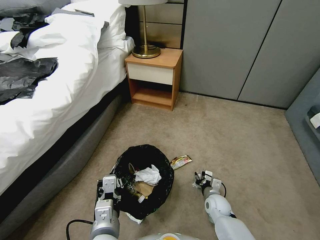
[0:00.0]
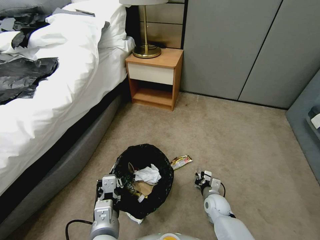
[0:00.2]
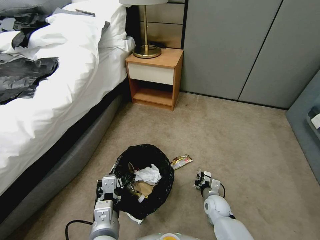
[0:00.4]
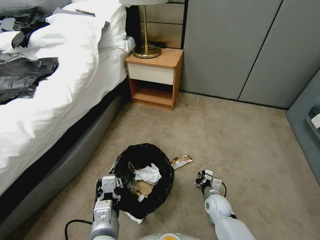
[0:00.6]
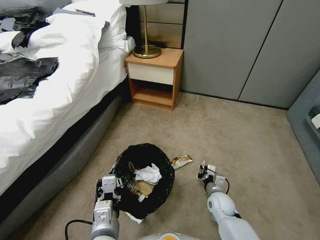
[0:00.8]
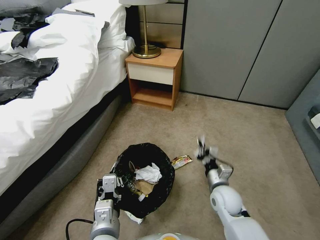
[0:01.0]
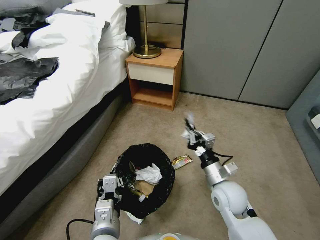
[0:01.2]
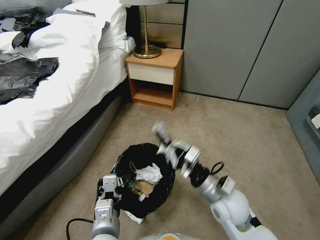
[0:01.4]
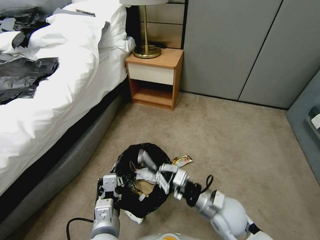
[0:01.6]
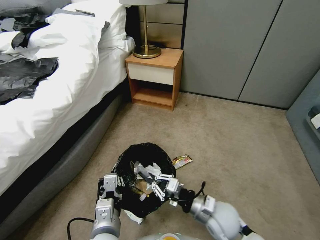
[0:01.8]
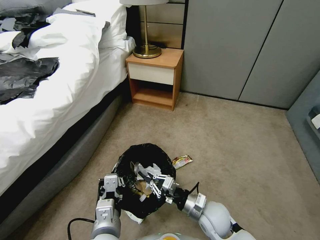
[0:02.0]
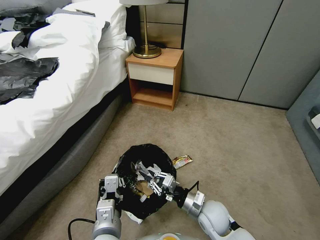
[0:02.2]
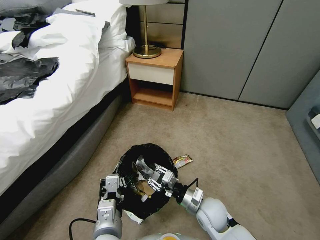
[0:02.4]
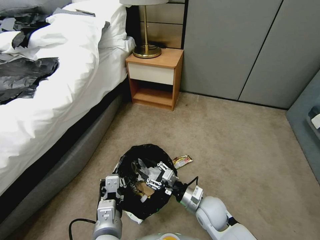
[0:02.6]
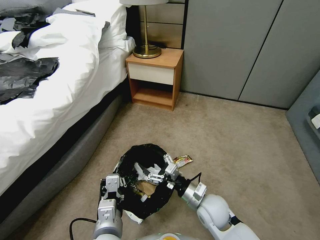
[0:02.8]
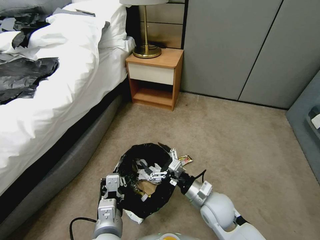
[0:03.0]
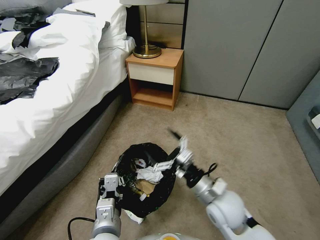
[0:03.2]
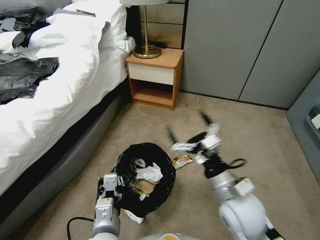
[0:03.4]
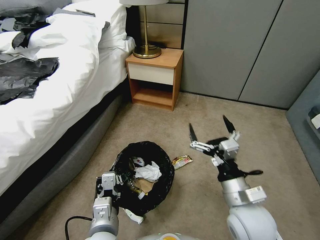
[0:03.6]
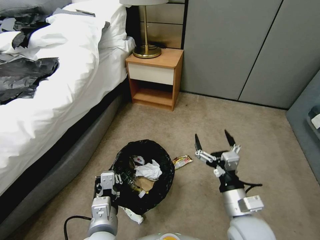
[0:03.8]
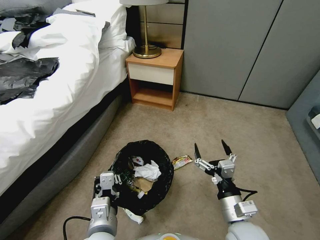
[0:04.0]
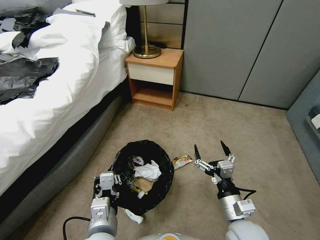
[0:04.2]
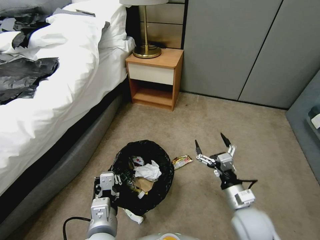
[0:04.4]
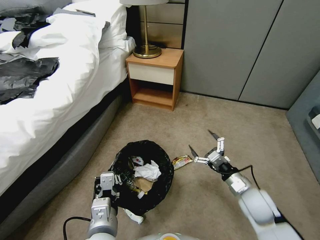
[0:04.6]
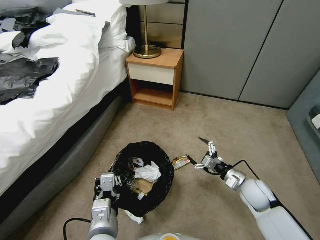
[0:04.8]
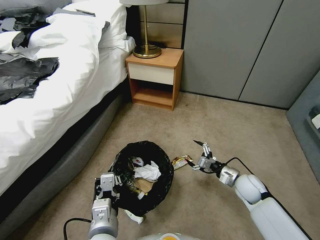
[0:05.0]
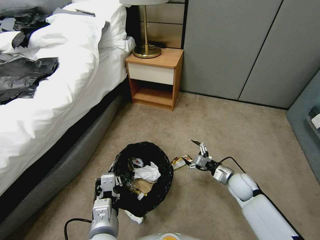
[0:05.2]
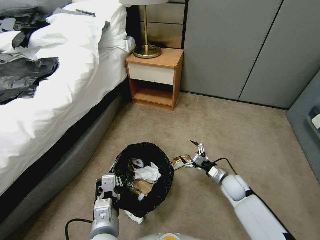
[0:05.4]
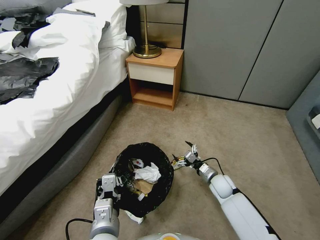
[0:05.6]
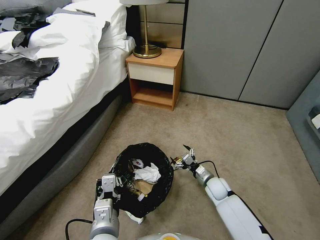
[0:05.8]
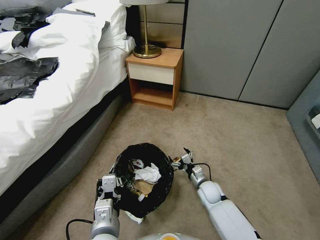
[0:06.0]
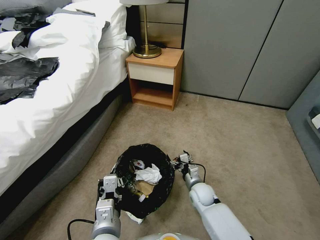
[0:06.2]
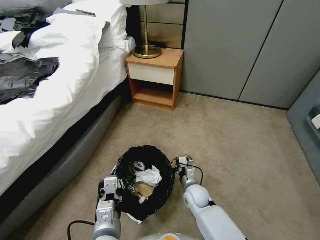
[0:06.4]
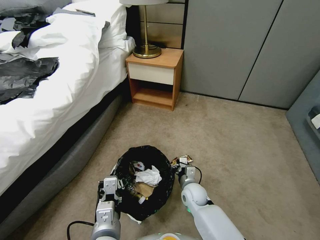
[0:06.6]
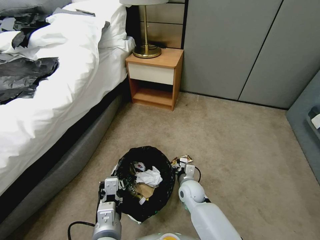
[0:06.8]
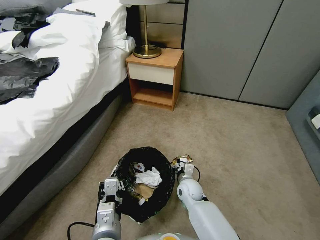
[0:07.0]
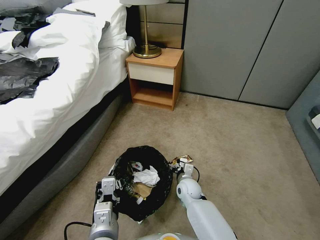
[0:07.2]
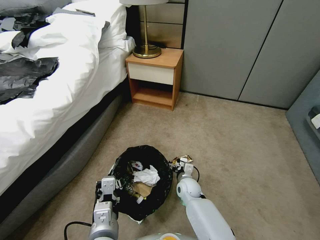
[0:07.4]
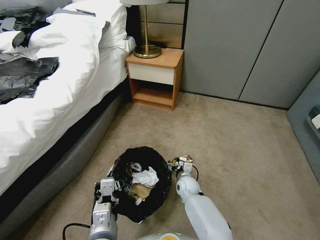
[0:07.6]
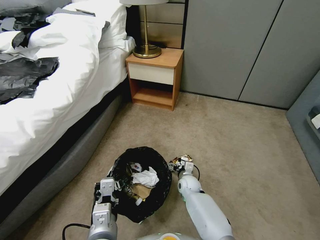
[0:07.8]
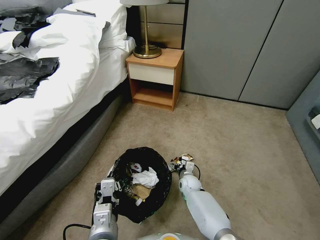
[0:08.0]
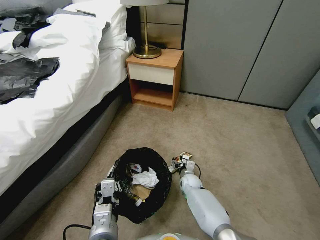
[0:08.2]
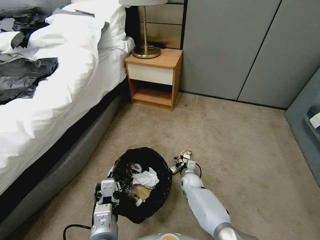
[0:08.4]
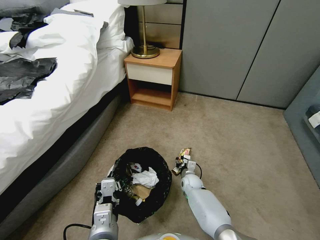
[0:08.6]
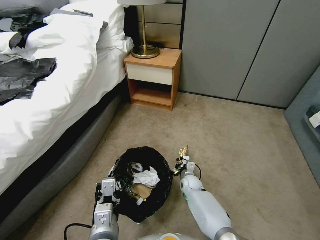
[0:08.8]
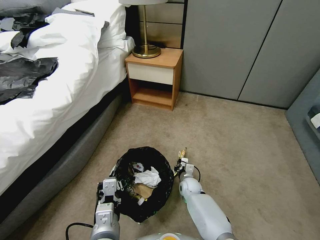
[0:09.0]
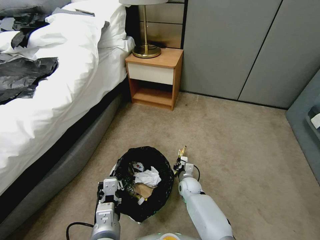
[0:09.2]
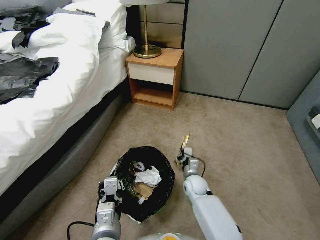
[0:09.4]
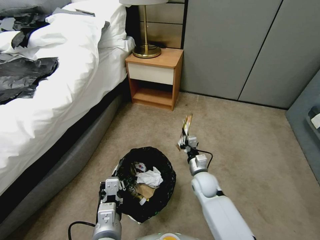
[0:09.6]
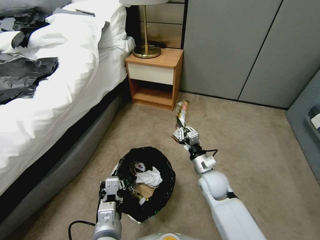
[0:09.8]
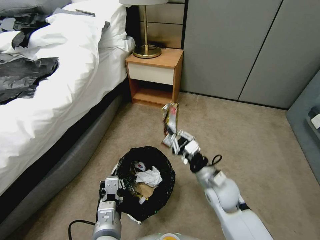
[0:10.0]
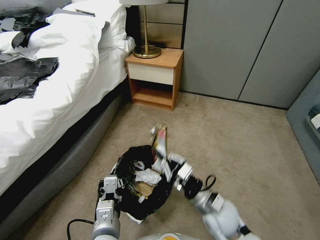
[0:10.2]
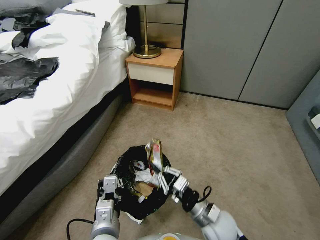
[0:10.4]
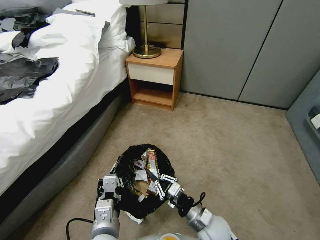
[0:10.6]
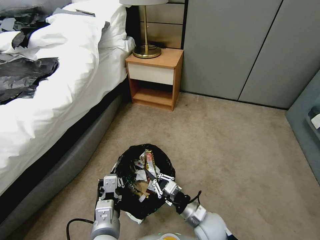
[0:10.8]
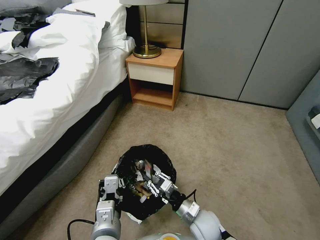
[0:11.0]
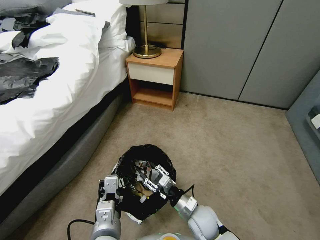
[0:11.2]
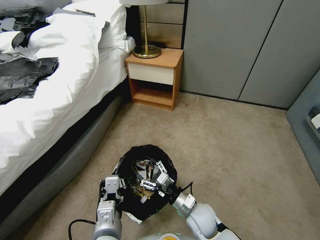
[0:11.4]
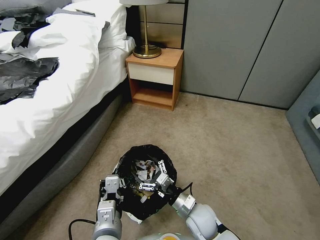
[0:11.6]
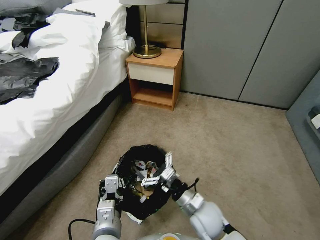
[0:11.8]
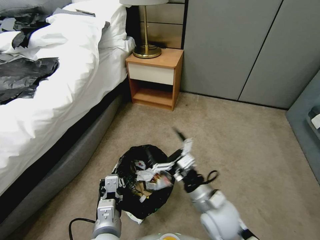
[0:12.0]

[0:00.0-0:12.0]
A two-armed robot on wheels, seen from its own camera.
Task of the whole recording: Pick up the trash bin, then pick up the garbage from the floor and place it into the trash bin.
0:00.0 to 0:01.6: The right gripper moves upward, approximately 20 cm, and closes up.
0:01.6 to 0:03.0: The right gripper opens its fingers.
0:03.0 to 0:04.4: The right gripper goes roughly 10 cm to the right and backward, and reaches about 10 cm upward, then returns.
0:04.4 to 0:06.0: The right gripper travels downward and forward by roughly 25 cm.
0:06.0 to 0:07.6: The right gripper heads to the left, covering roughly 10 cm.
0:07.6 to 0:09.0: The right gripper closes.
0:09.0 to 0:10.4: The right gripper moves backward and upward, roughly 25 cm.
0:10.4 to 0:12.0: The right gripper travels upward by some 10 cm, and opens its fingers.

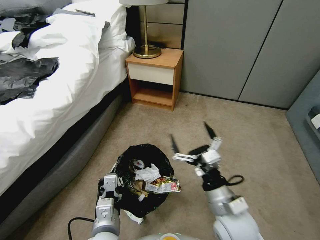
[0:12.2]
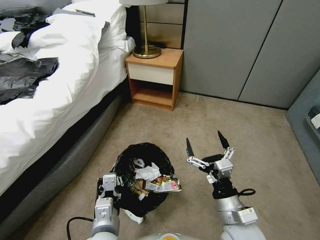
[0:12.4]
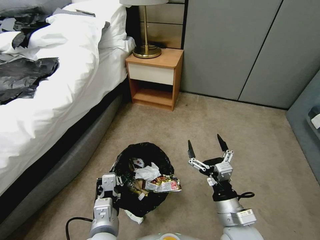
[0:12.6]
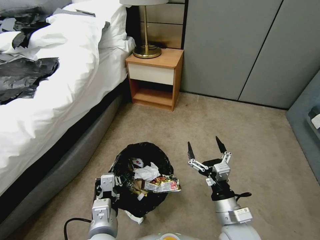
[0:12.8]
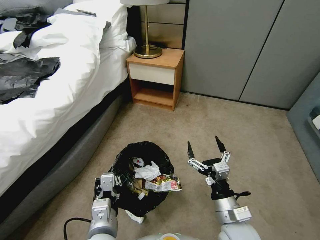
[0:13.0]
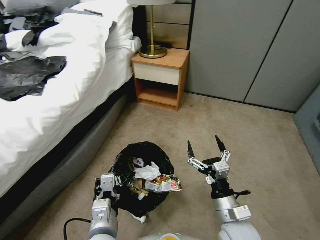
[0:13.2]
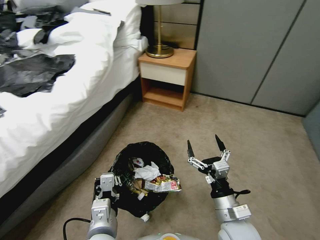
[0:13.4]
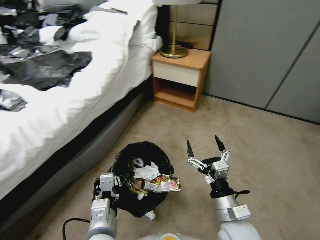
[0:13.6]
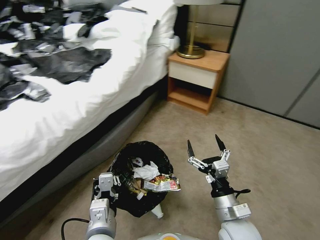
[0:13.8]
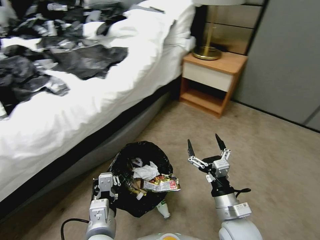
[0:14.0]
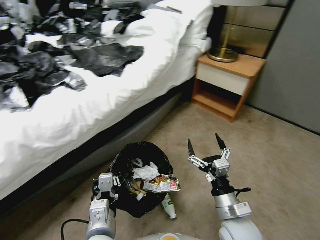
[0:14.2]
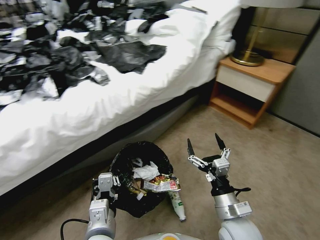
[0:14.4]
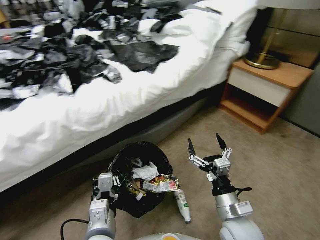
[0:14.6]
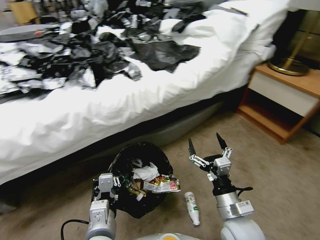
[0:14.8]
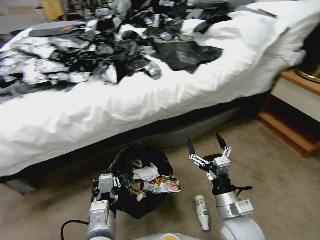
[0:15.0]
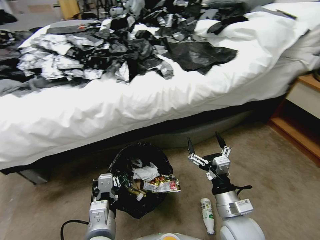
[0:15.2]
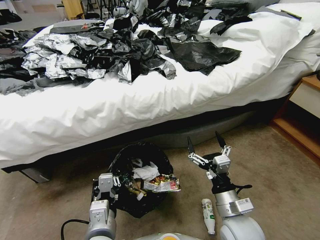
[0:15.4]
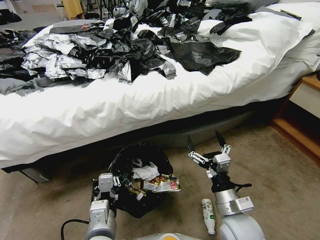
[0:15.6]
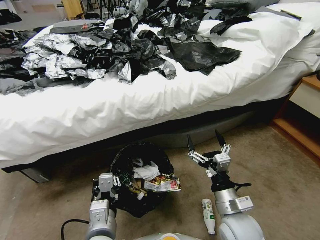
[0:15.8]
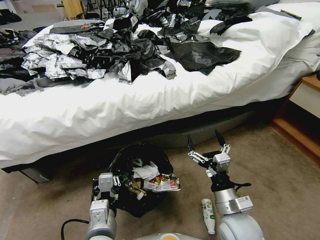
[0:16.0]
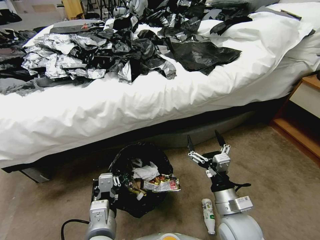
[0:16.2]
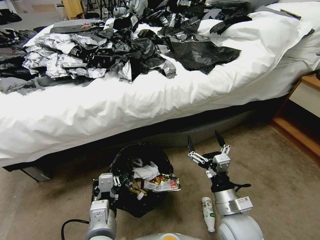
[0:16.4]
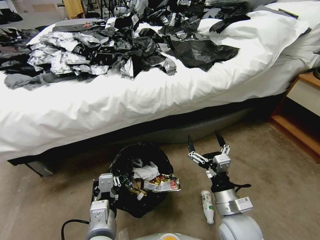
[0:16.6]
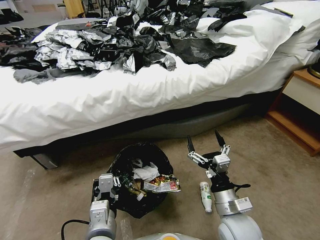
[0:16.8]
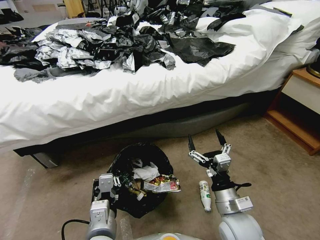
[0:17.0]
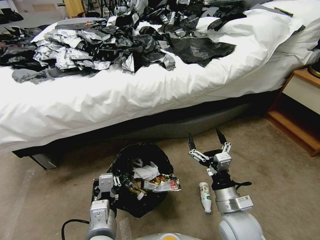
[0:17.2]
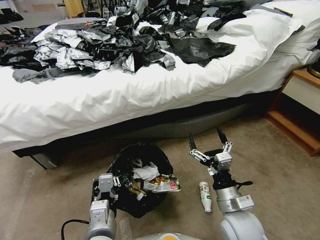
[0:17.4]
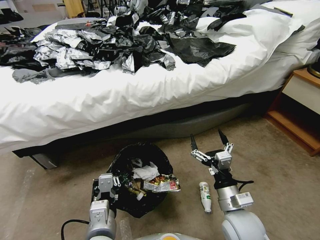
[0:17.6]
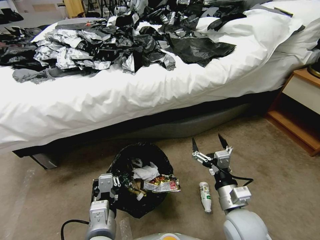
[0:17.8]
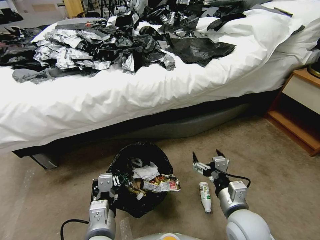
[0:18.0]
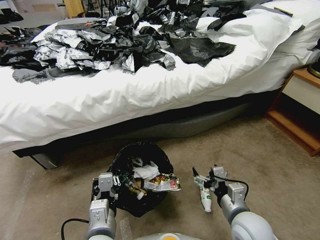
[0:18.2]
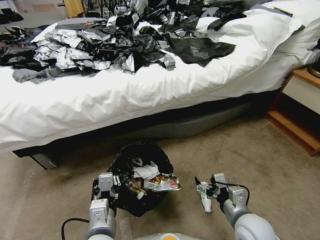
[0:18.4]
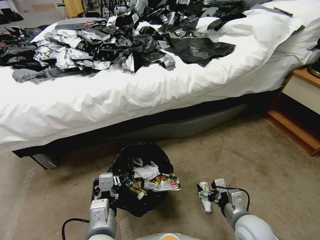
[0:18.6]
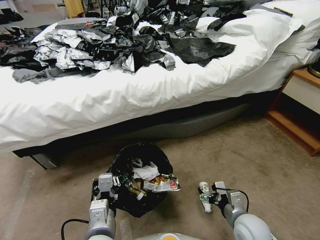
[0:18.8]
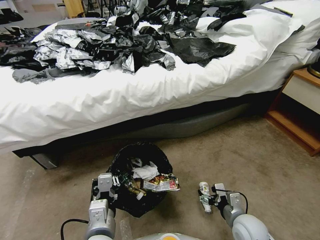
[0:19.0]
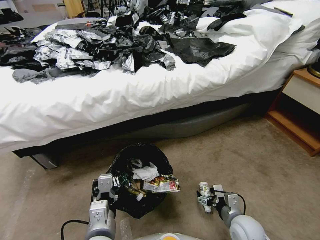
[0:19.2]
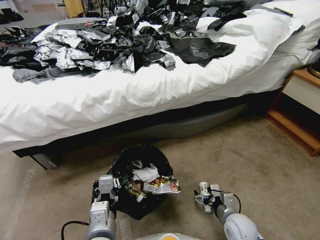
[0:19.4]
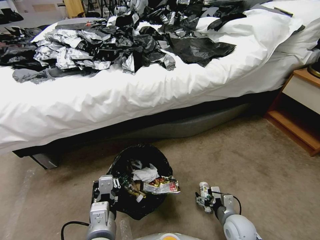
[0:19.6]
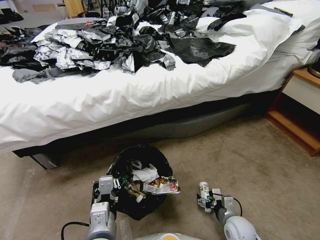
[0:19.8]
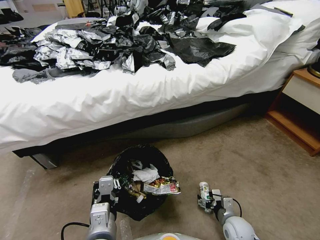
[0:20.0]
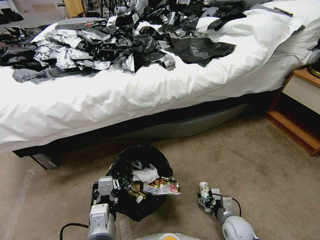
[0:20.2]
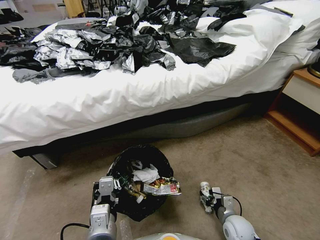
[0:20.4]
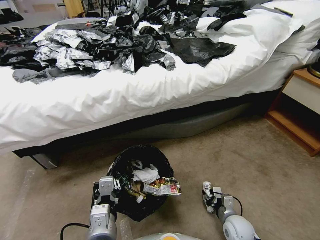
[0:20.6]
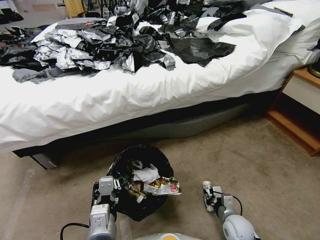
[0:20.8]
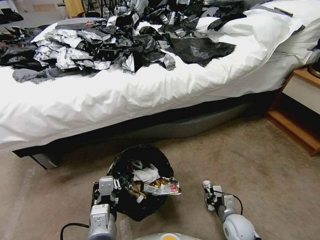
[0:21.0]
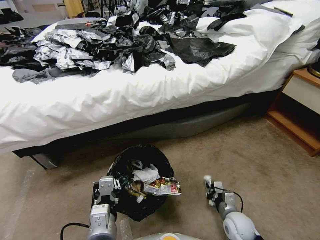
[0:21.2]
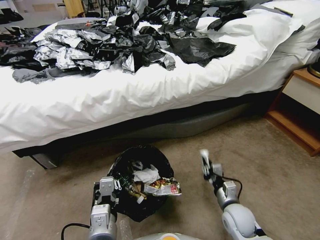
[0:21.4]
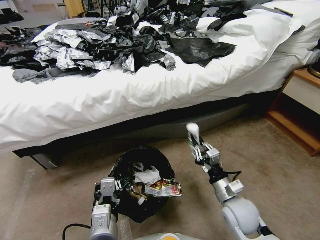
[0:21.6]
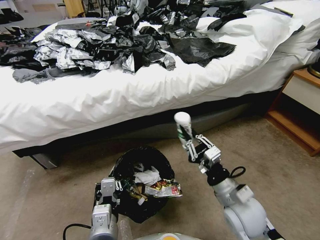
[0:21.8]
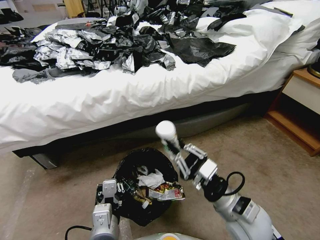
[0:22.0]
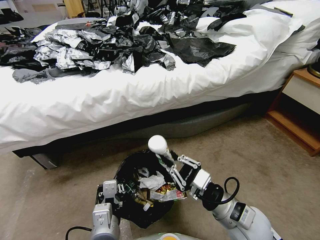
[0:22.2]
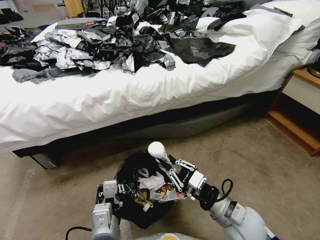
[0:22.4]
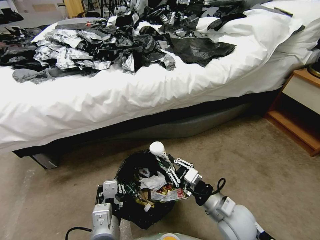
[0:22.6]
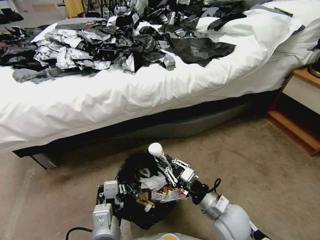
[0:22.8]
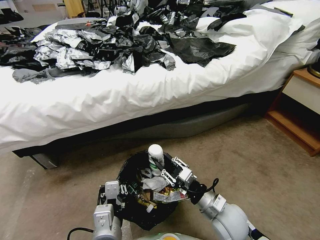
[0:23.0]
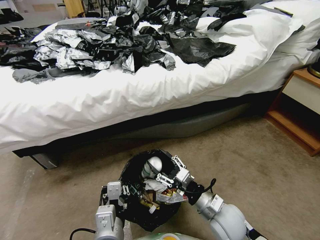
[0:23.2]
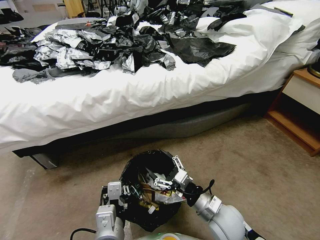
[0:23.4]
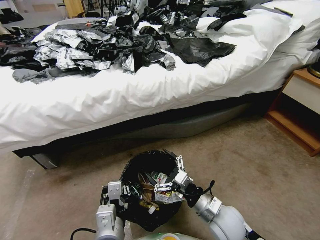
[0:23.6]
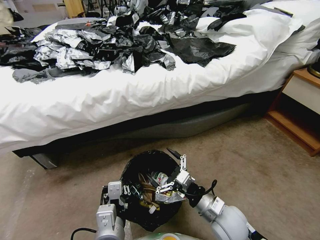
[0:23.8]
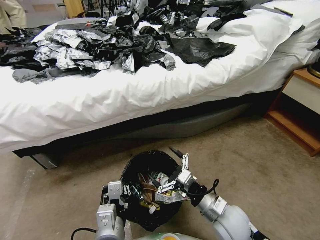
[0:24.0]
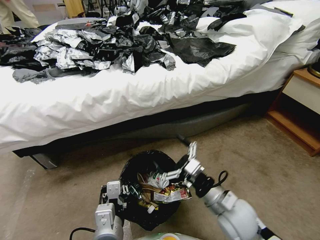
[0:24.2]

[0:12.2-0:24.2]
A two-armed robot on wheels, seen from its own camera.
Task of the whole recording: Pick up the trash bin, then pick up the garbage from the floor and place it into the trash bin.
0:12.2 to 0:13.8: The right gripper ends up some 5 cm from where it was.
0:18.2 to 0:19.8: The right gripper travels downward by approximately 20 cm.
0:19.8 to 0:21.2: The right gripper closes its fingers.
0:21.2 to 0:22.6: The right gripper is displaced upward and to the left by roughly 20 cm.
0:22.6 to 0:24.2: The right gripper opens its fingers.
